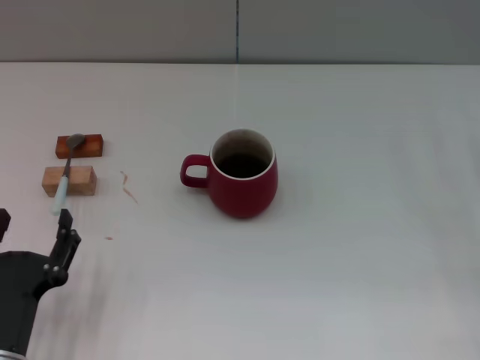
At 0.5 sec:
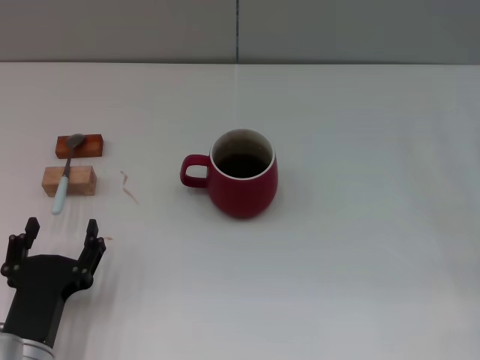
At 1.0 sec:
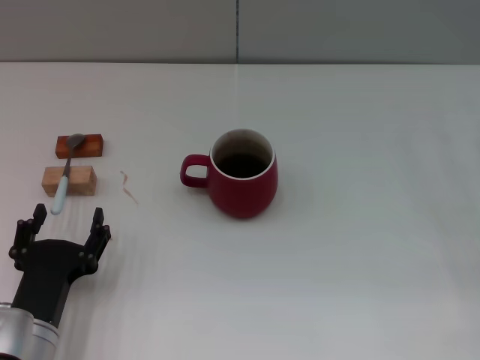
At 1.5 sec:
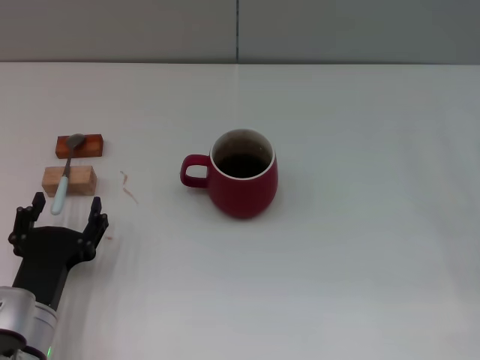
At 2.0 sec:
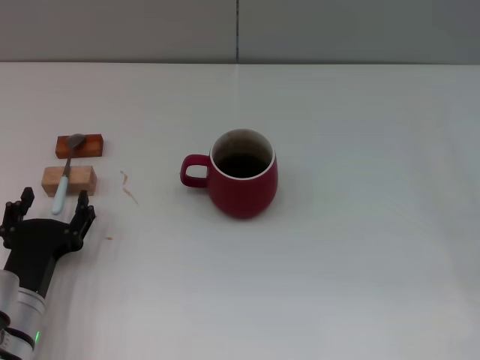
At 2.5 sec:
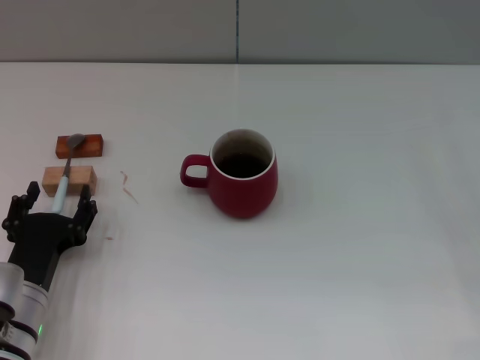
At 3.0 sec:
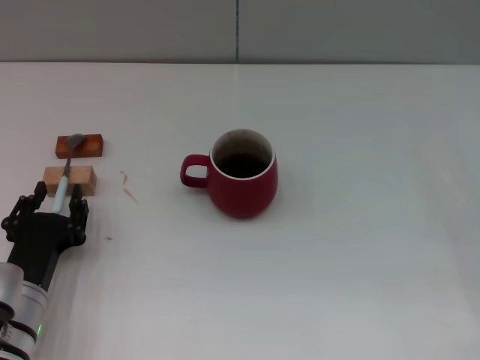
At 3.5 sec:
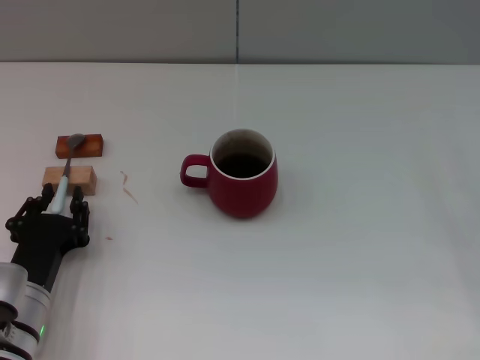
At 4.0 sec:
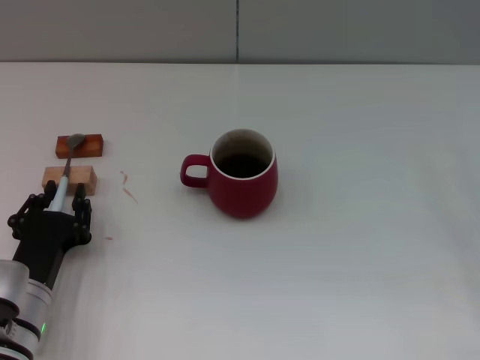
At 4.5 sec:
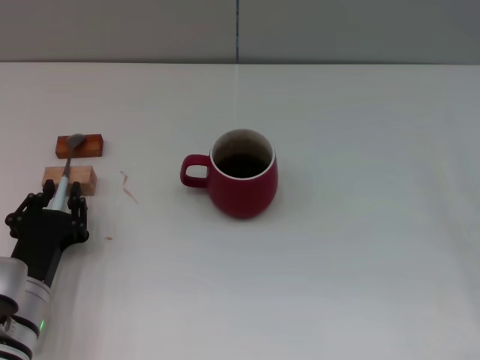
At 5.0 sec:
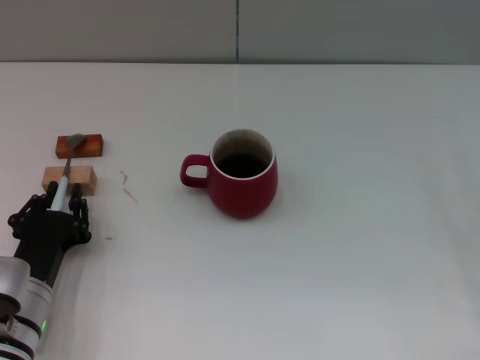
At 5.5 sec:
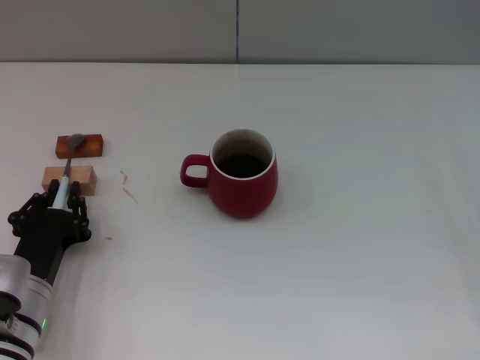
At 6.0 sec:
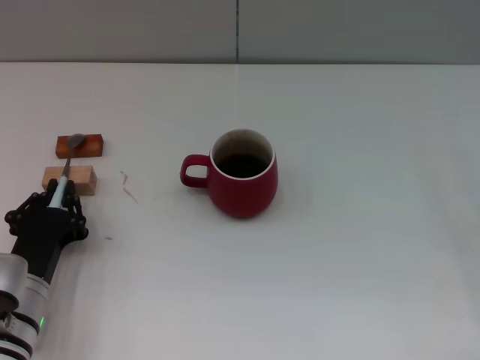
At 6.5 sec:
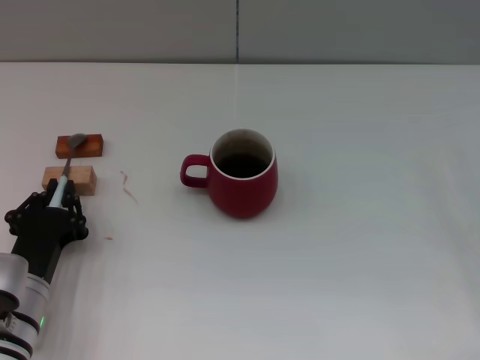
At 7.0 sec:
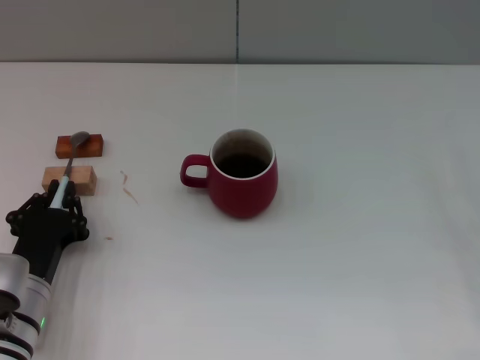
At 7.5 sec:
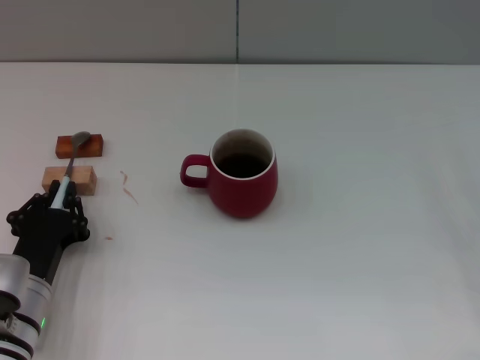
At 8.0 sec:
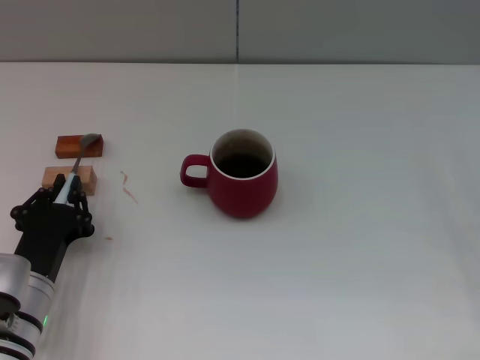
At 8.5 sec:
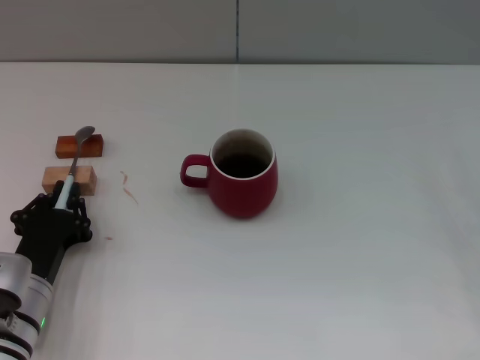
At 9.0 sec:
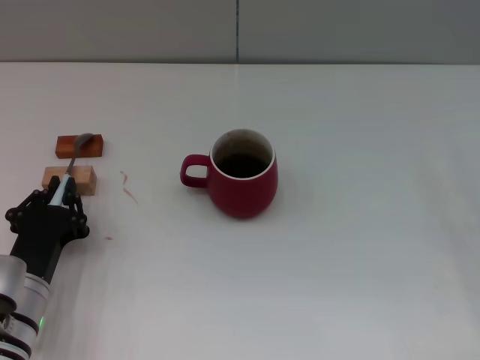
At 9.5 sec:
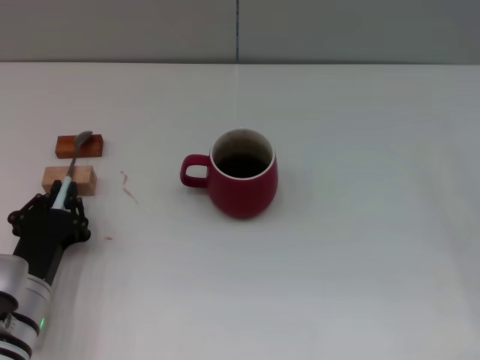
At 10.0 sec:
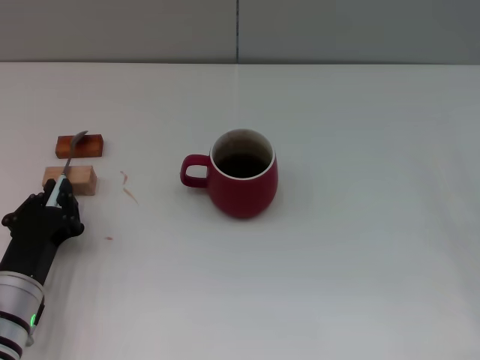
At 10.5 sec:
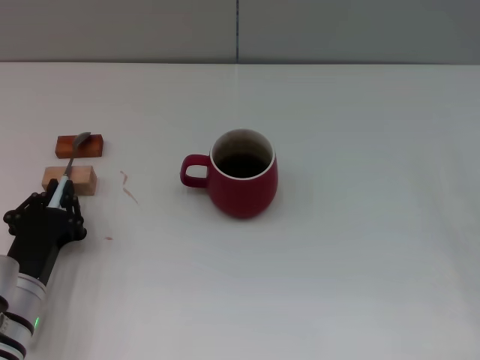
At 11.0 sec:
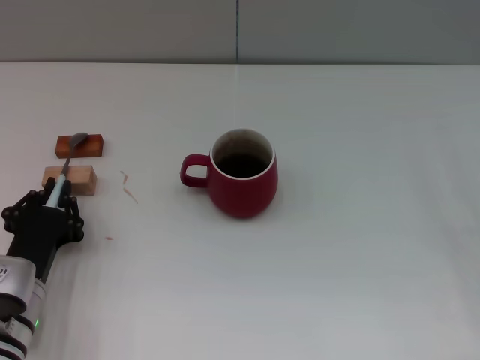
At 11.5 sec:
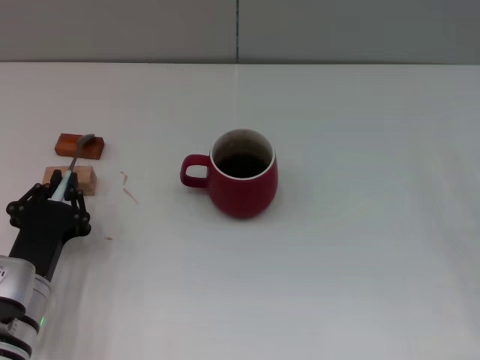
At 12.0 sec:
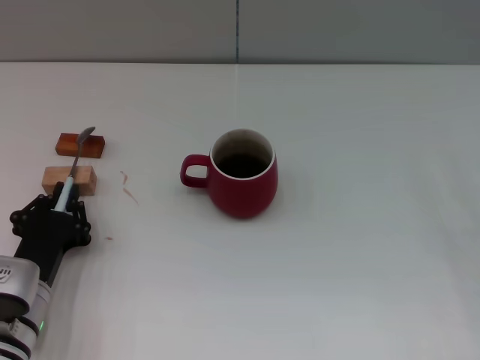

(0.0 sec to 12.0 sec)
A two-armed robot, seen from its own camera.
Task of the whole recording: Move the red cup to the center, lift the blue spoon, stir it three times in the cup, and put the spoon into the cup.
0.0 sec - 2.0 sec: The left gripper moves forward, roughly 5 cm.
2.0 sec - 4.0 sec: The left gripper closes its fingers.
4.0 sec - 8.0 sec: Both grippers stay about where they are.
8.0 sec - 12.0 sec: The grippers stay close to where they were, moving slightly.

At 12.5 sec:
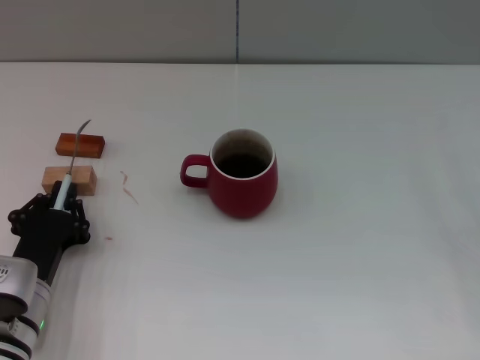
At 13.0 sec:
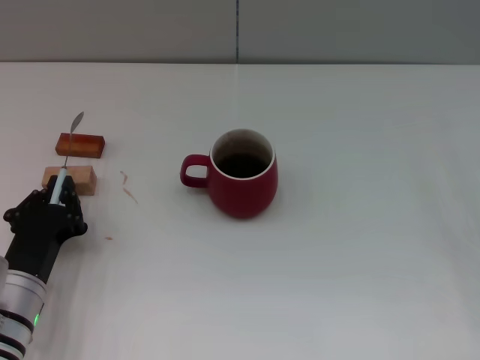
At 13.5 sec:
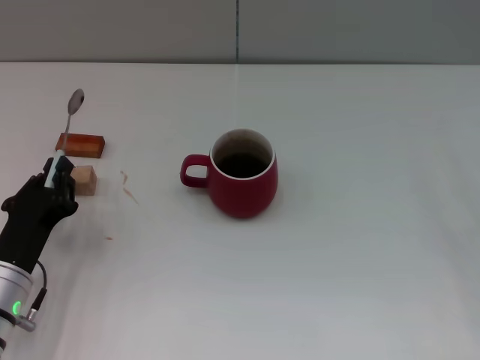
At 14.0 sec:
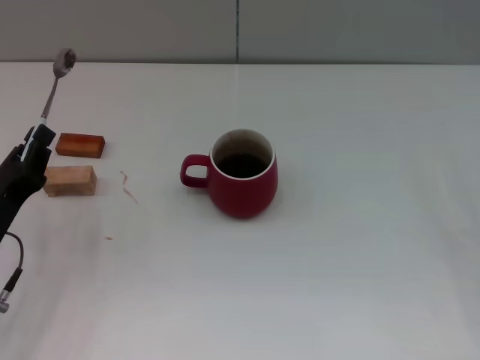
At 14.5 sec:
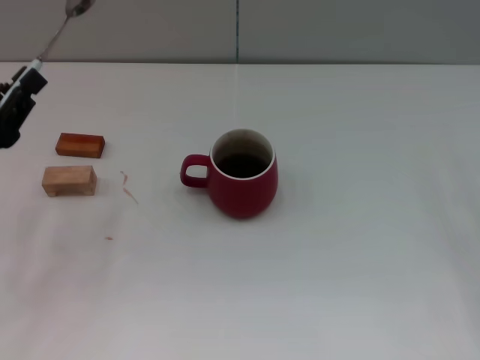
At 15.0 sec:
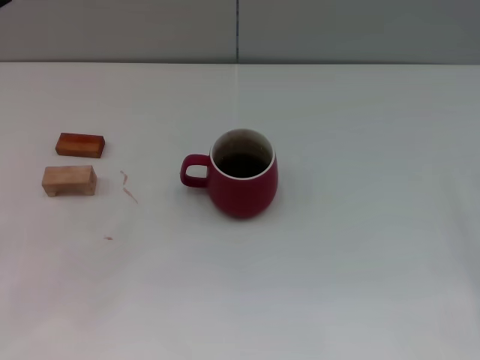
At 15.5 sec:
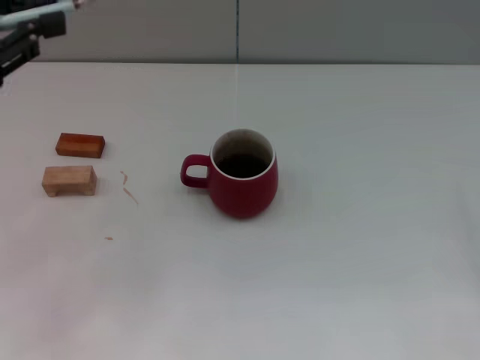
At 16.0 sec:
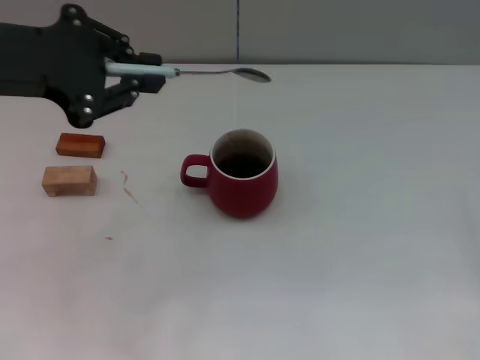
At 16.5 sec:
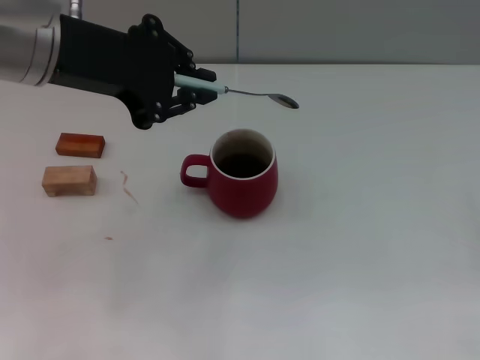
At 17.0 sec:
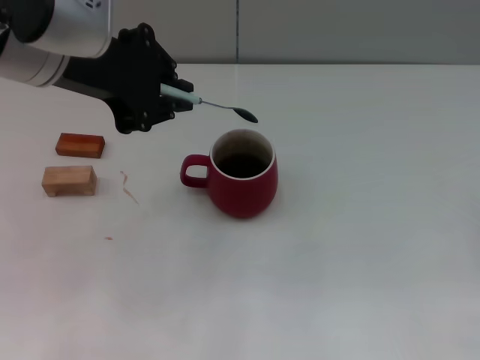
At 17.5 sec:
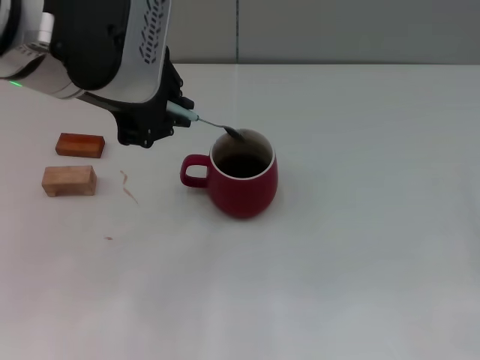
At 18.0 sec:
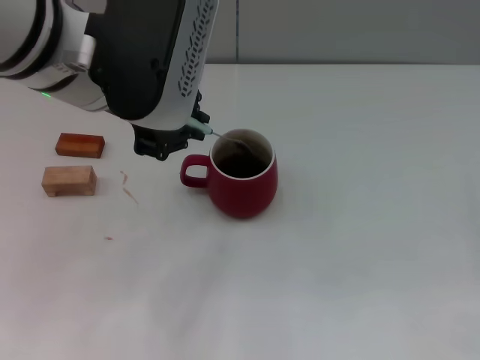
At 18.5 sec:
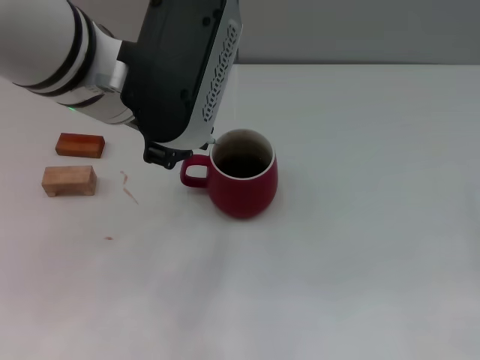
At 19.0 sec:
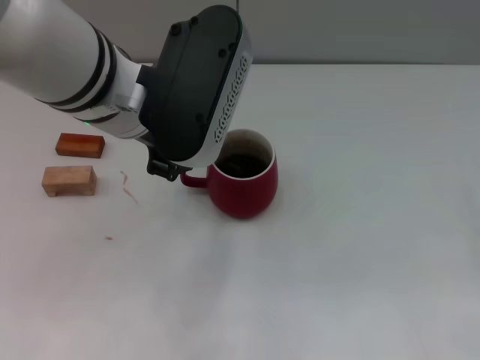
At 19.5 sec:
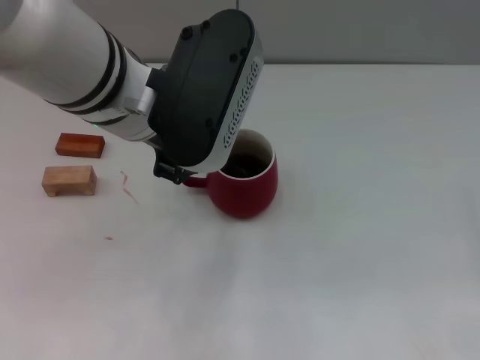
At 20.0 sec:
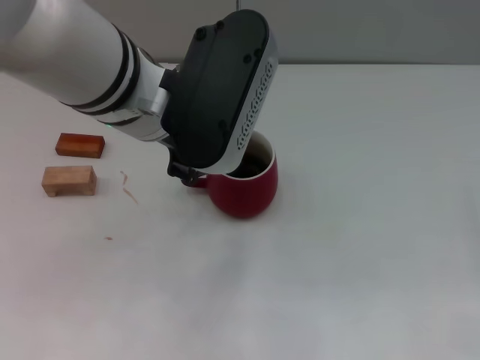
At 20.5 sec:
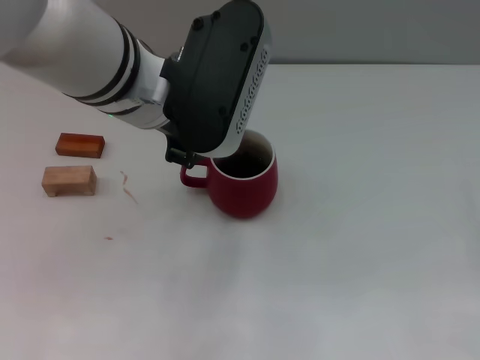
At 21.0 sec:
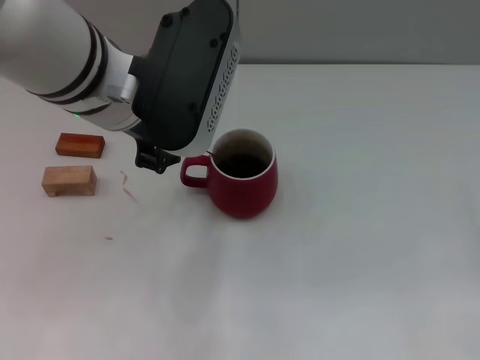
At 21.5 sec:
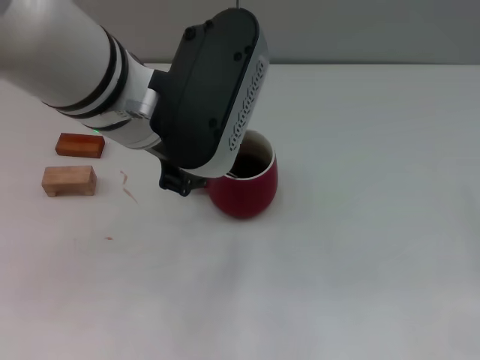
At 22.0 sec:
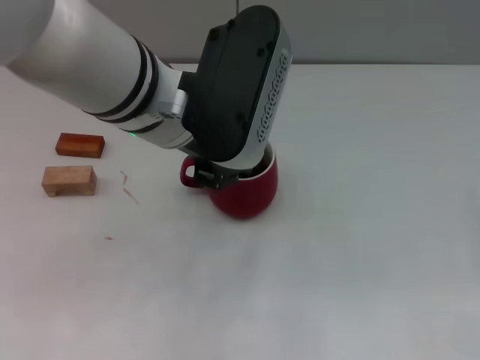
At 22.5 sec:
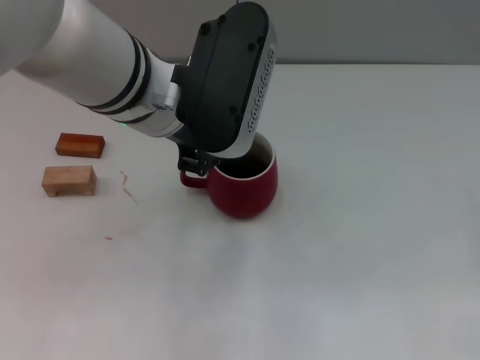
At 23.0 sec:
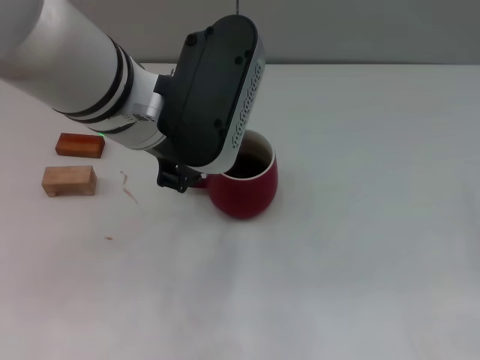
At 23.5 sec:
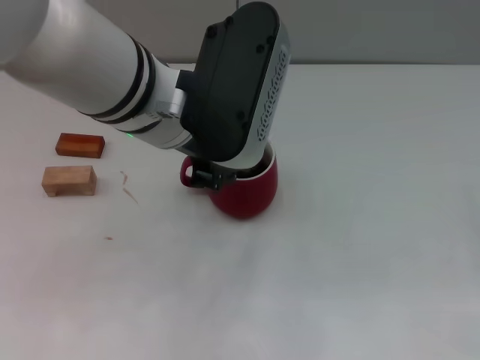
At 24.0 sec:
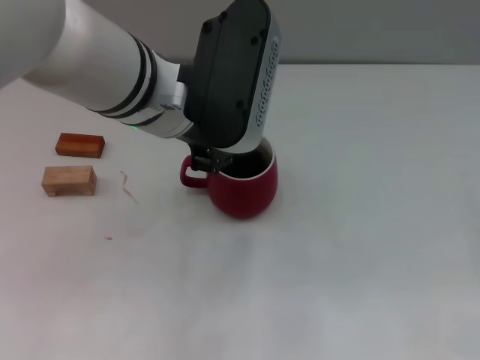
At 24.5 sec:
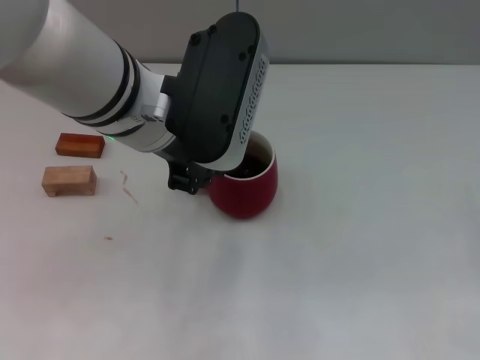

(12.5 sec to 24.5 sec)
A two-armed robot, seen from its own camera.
Task of the whole recording: Move the red cup to the center, lift the blue spoon, stir it three times in the cup, and put the spoon into the cup.
12.5 sec - 14.5 sec: The left gripper moves upward, to the left and forward, approximately 15 cm.
14.5 sec - 16.5 sec: The left gripper is displaced upward, to the right and forward by about 25 cm.
16.5 sec - 18.5 sec: The left gripper is displaced to the right by approximately 5 cm.
18.5 sec - 24.5 sec: The grippers stay close to where they were, moving slightly.

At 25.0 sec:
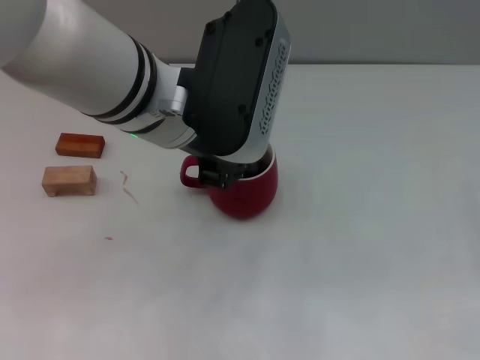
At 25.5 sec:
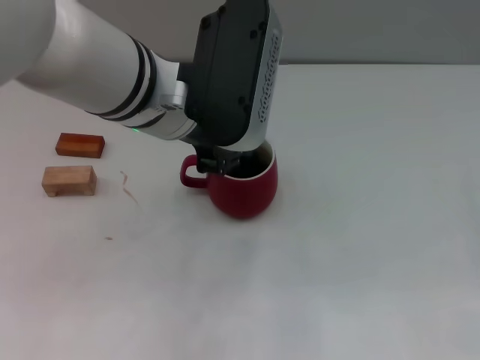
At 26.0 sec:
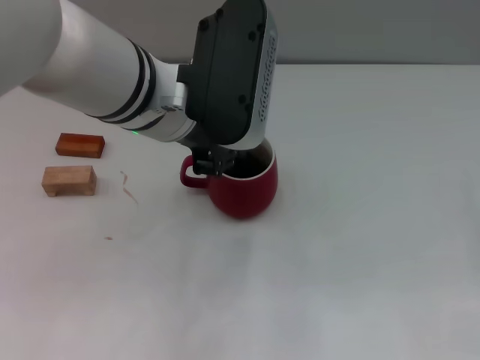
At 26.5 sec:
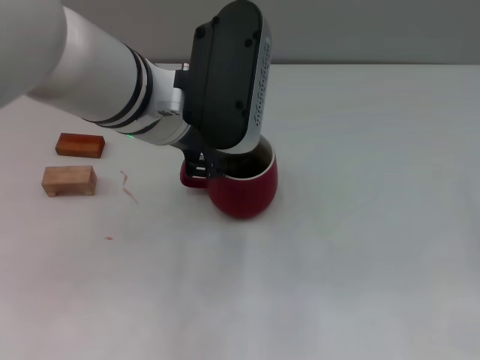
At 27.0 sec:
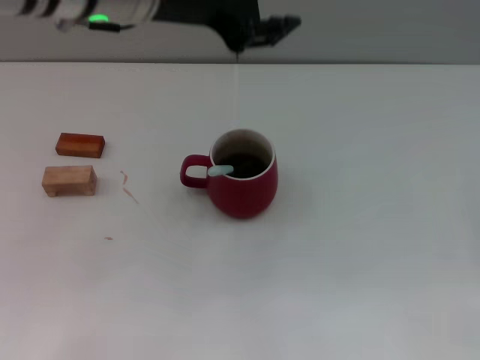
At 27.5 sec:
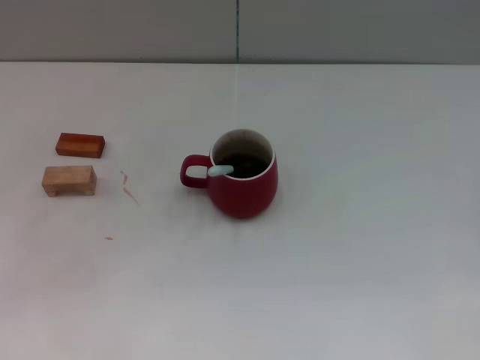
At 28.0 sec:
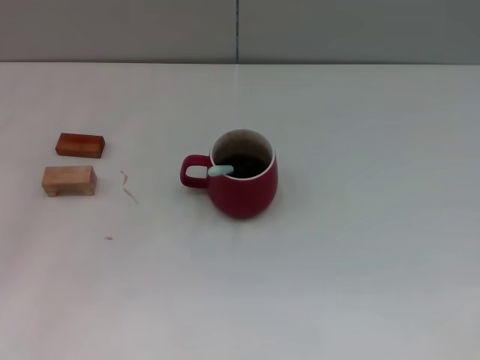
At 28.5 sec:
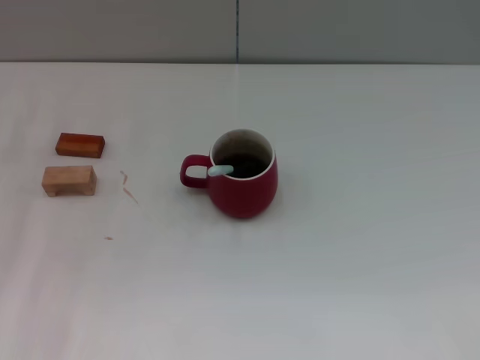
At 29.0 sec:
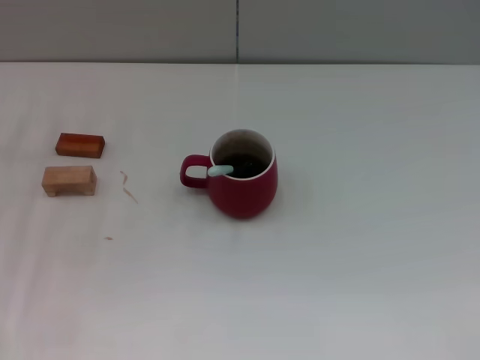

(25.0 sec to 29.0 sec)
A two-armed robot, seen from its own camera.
Task of the whole recording: Move the red cup to the center, lift the blue spoon, stir it three times in the cup, and put the spoon into the cup.
25.0 sec - 27.0 sec: The left gripper shifts approximately 5 cm upward, and opens up.
27.0 sec - 29.0 sec: The left gripper moves downward and to the left, approximately 25 cm.
